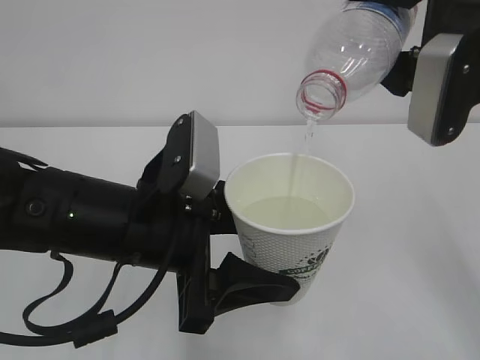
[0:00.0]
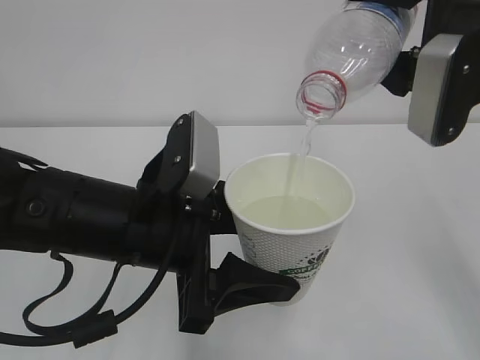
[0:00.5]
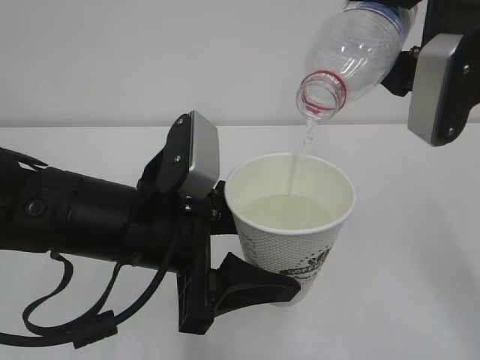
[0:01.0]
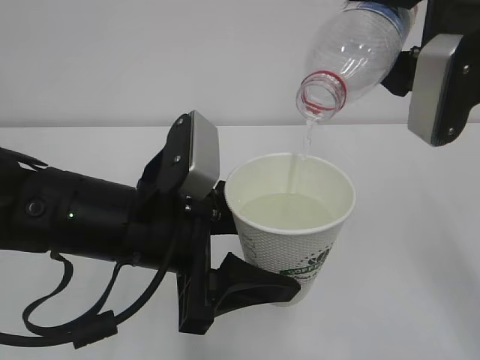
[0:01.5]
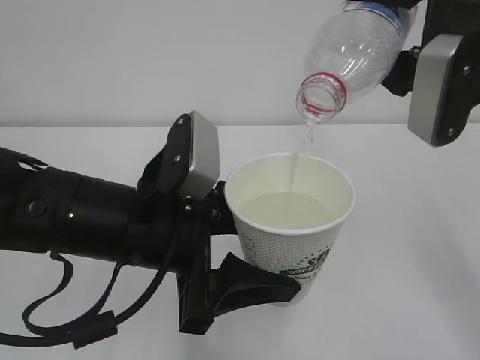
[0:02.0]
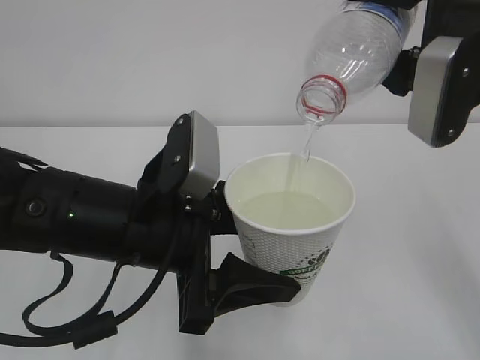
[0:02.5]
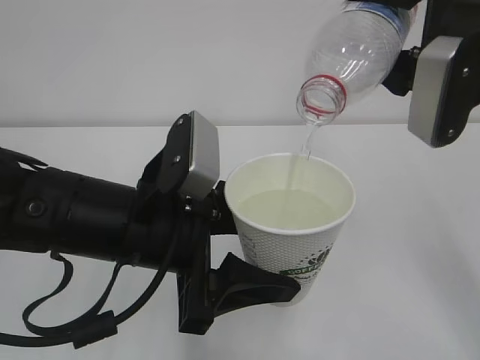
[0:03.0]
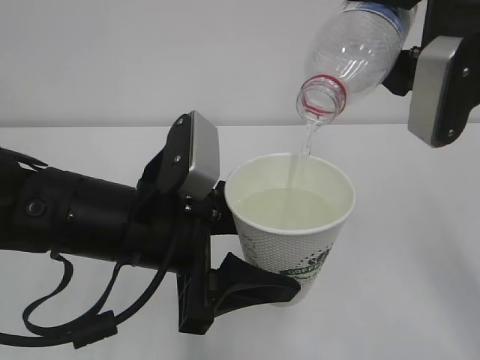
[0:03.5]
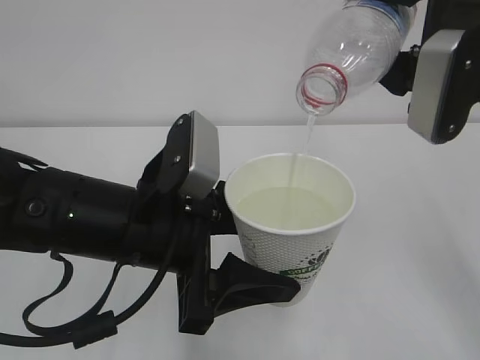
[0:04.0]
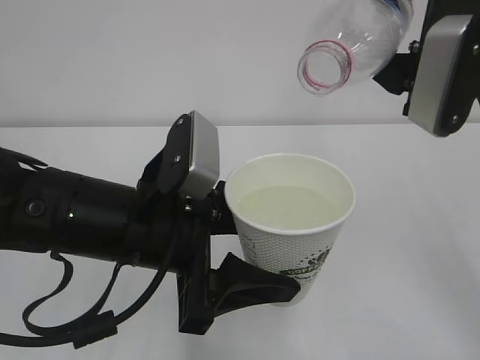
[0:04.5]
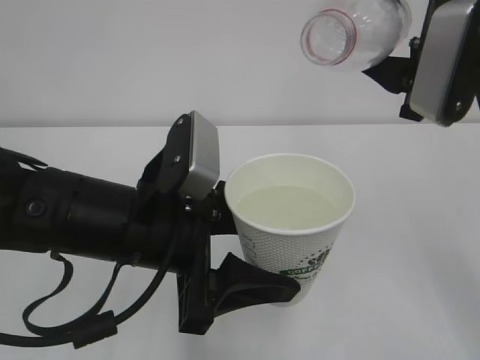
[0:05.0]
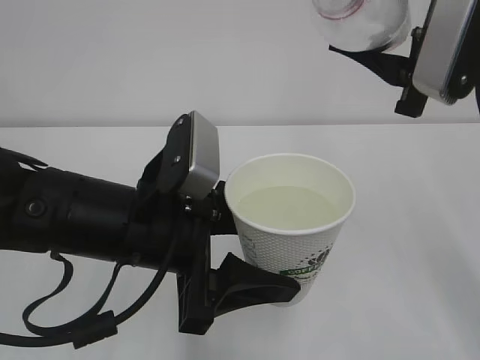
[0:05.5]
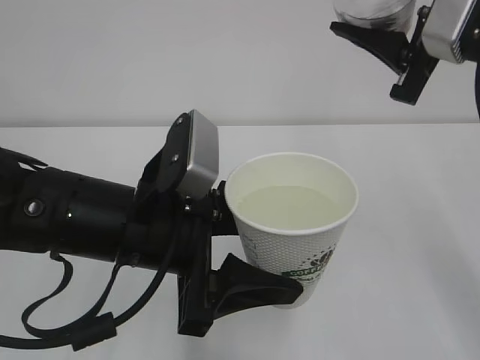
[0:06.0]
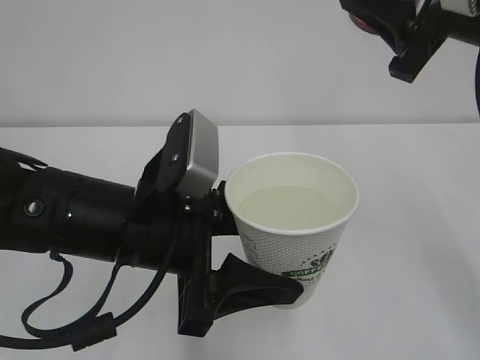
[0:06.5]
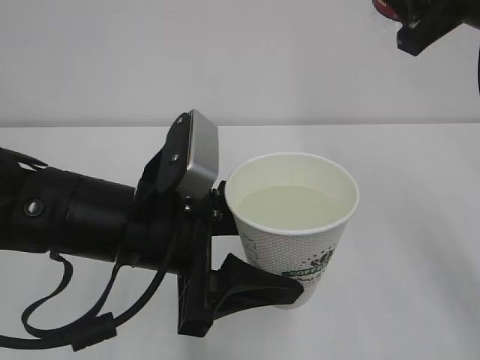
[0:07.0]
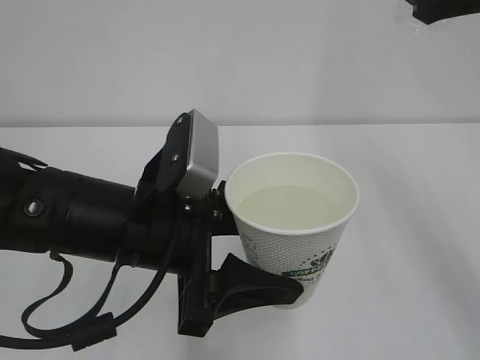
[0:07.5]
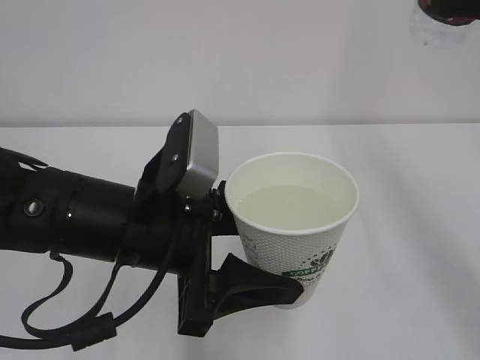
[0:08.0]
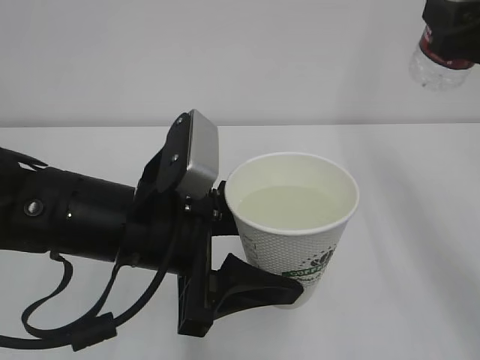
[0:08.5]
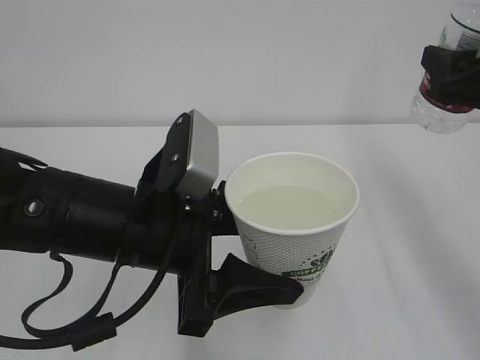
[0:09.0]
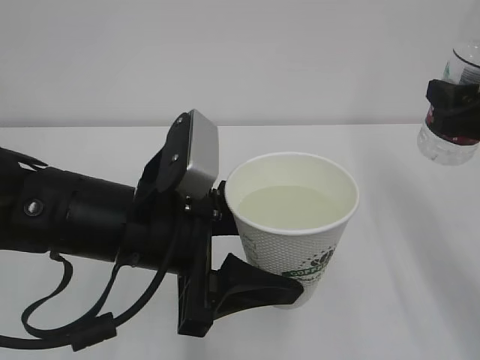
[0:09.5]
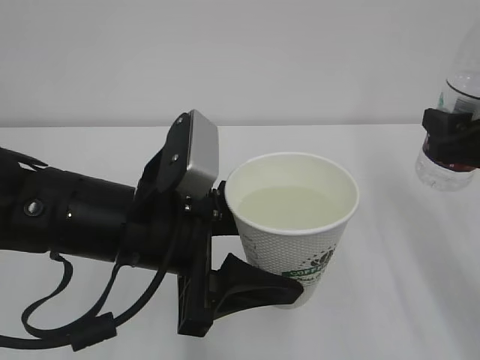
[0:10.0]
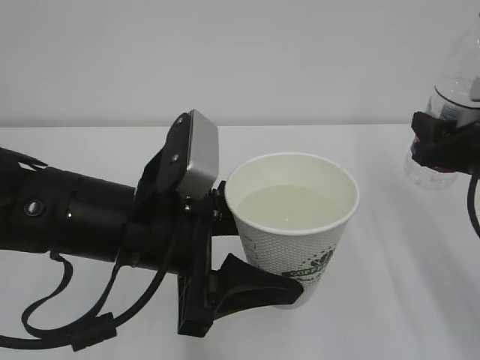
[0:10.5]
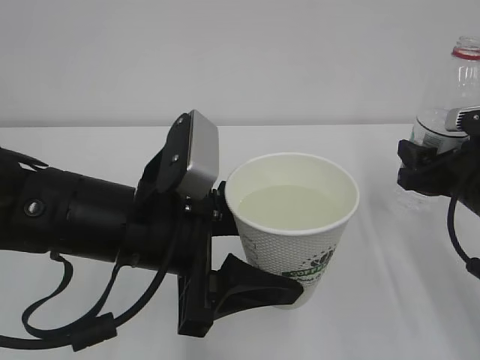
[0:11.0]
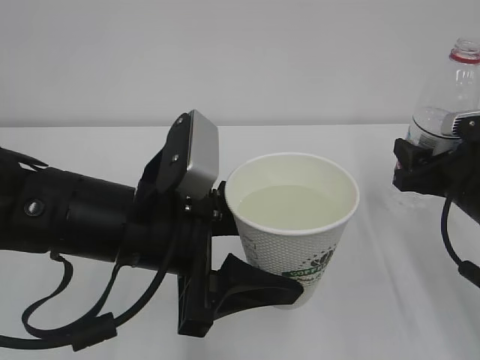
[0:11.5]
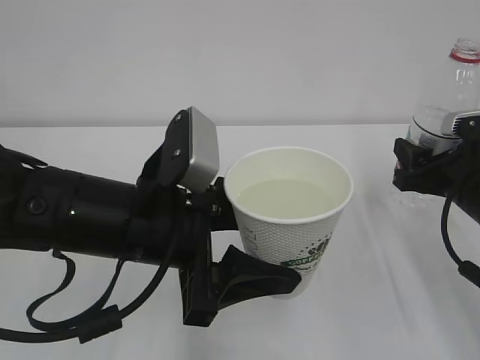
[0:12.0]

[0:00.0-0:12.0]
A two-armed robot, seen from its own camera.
0:00.0 to 0:04.0: The two grippers keep their place.
0:06.0 to 0:08.0: The right gripper shifts by about 5 cm.
0:08.0 to 0:10.0: The right gripper shifts approximately 10 cm downward.
0:10.0 to 0:12.0: The right gripper is displaced downward by approximately 5 cm.

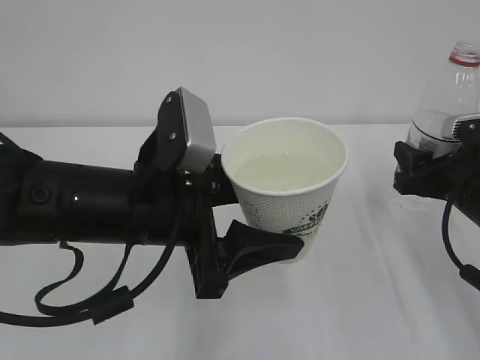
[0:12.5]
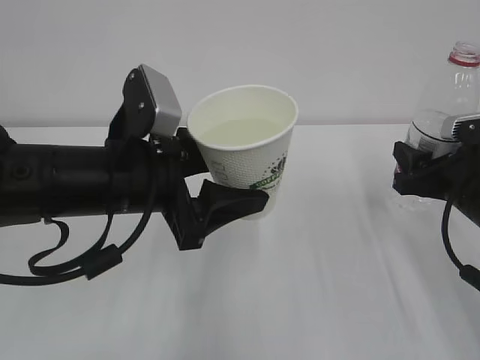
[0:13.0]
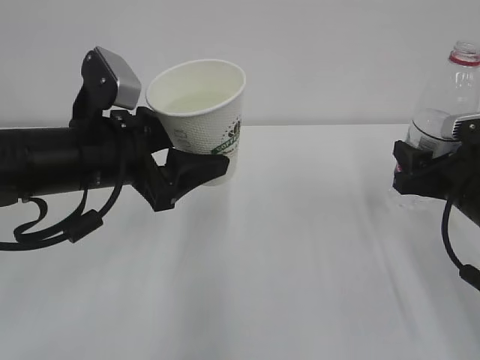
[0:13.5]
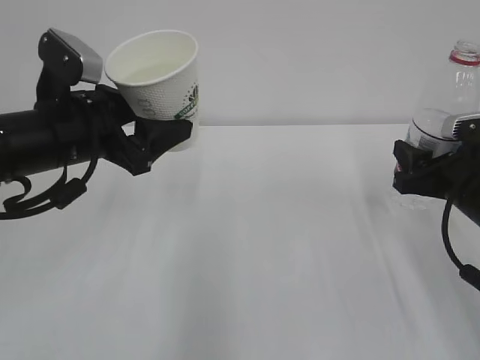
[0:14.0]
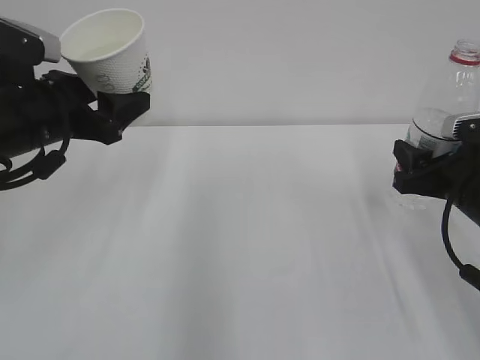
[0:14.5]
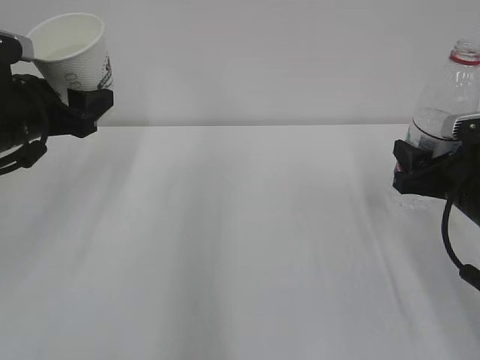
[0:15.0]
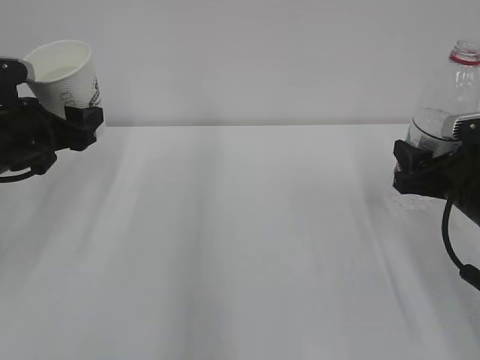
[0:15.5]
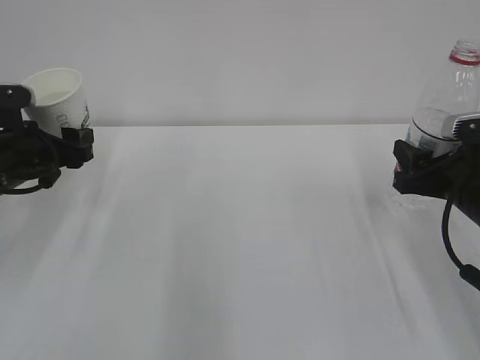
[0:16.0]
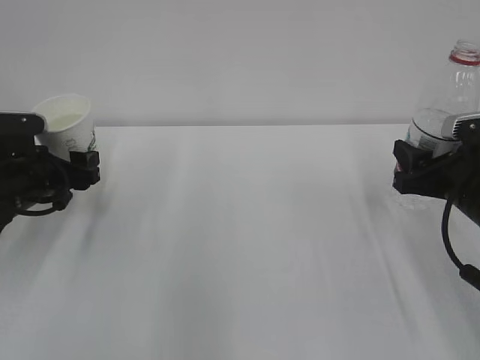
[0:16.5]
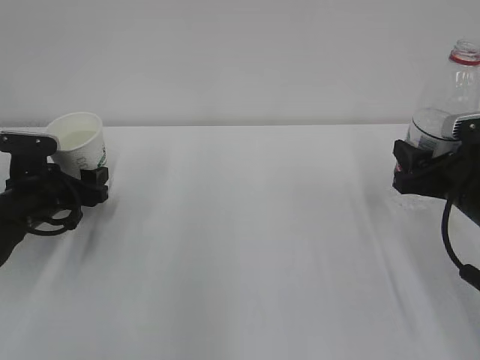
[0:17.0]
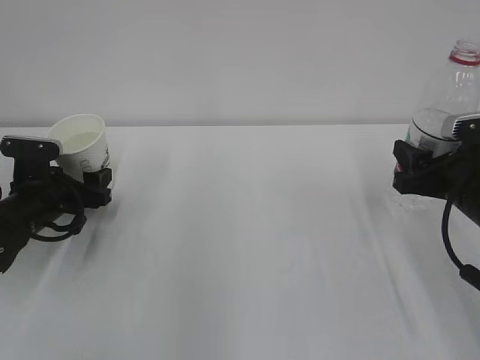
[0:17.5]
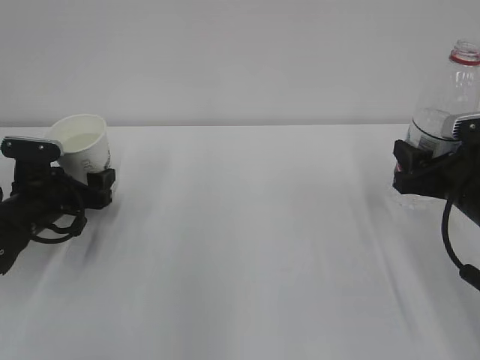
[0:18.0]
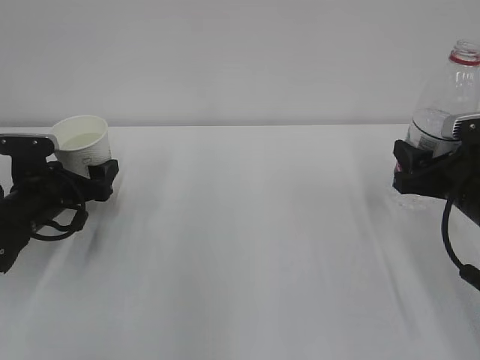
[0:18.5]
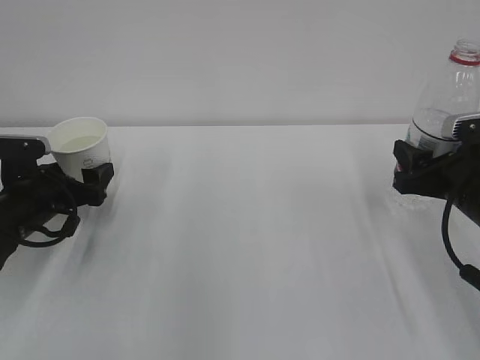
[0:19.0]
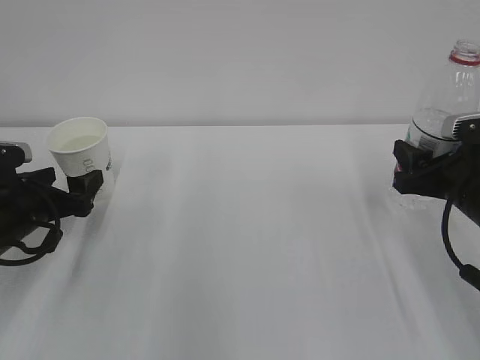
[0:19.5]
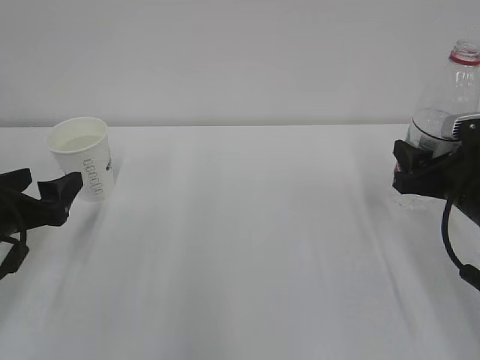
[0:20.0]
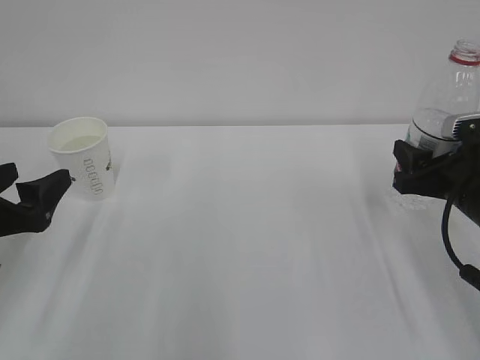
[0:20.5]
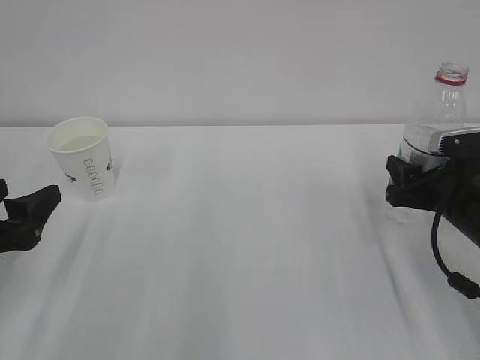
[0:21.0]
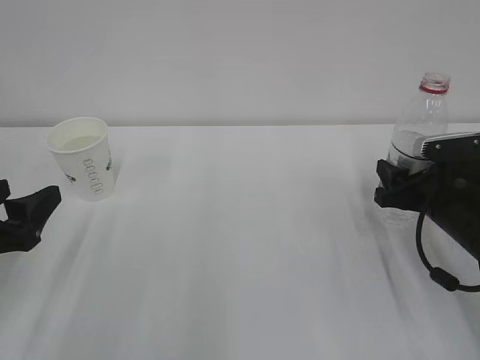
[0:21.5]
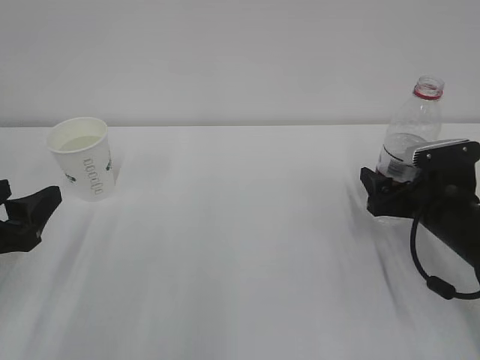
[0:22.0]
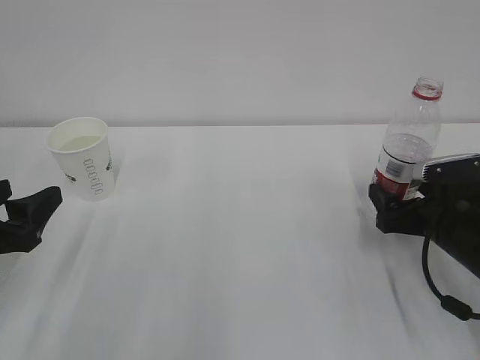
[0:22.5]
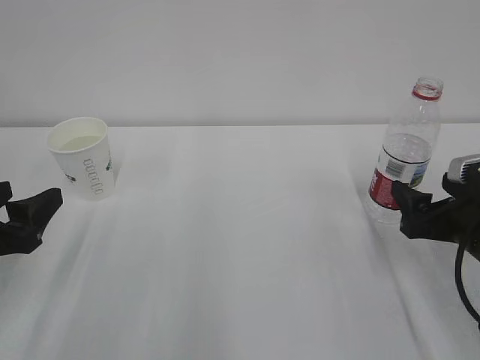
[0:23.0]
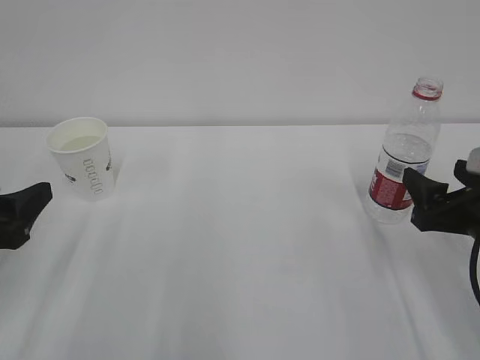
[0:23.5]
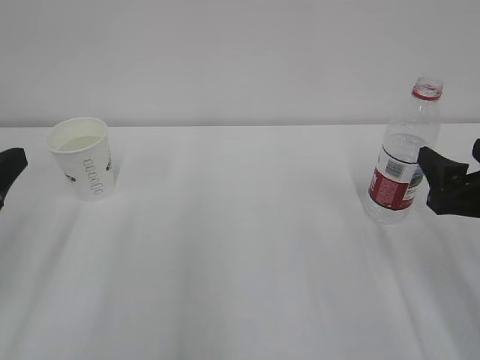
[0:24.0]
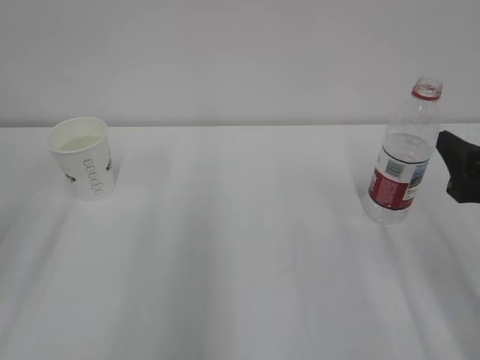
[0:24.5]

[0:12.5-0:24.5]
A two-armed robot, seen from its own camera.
0:12.5 to 0:14.5: The left gripper heads to the left and forward, covering about 15 cm.
0:14.5 to 0:16.5: The left gripper goes about 15 cm downward and to the left.
0:16.5 to 0:18.5: The left gripper opens up.
0:18.5 to 0:20.5: The left gripper heads backward and upward, covering about 15 cm.
0:20.5 to 0:22.5: The right gripper travels downward by approximately 5 cm, and opens.
0:22.5 to 0:24.5: The right gripper goes some 15 cm upward and backward, while the left gripper is displaced upward by approximately 10 cm.

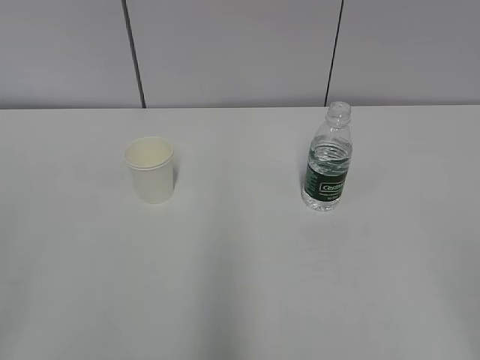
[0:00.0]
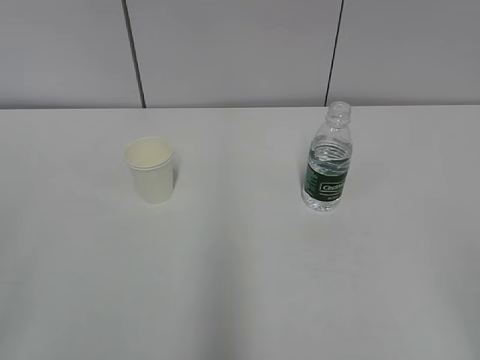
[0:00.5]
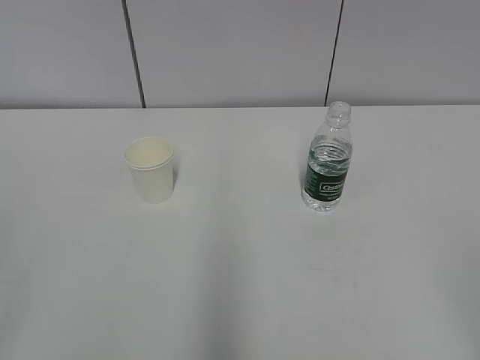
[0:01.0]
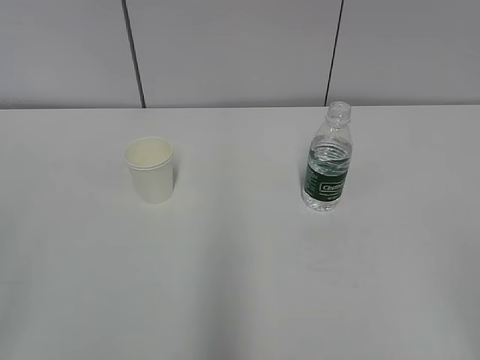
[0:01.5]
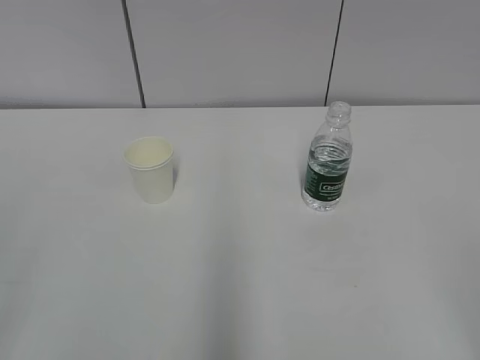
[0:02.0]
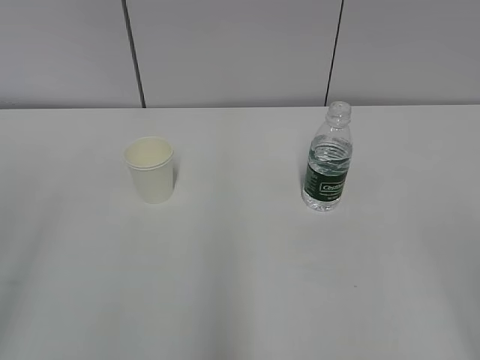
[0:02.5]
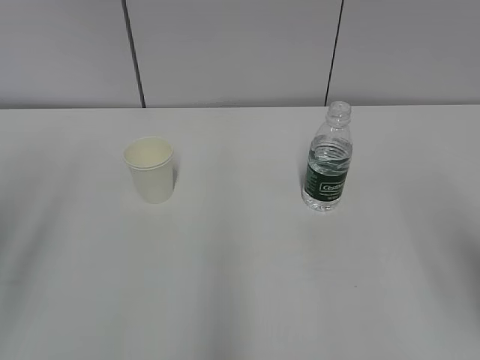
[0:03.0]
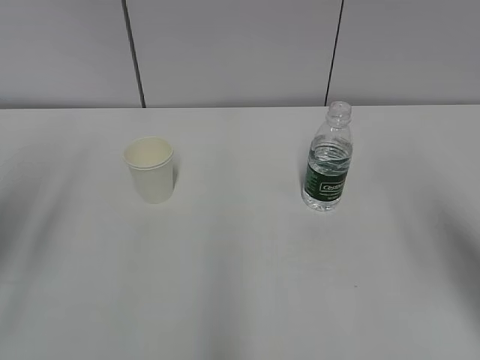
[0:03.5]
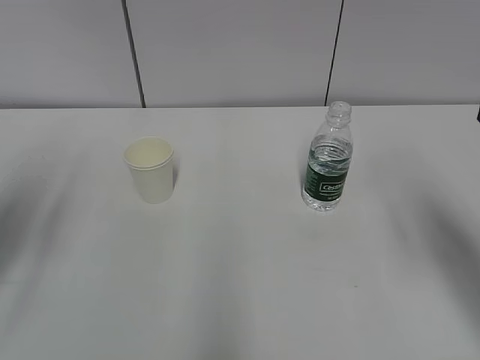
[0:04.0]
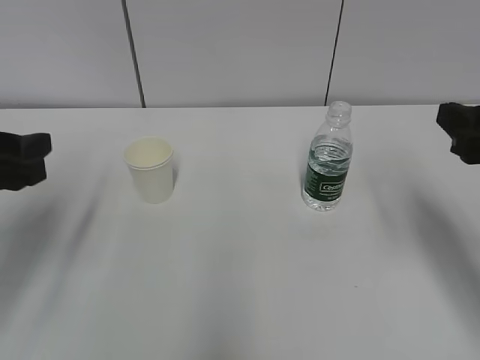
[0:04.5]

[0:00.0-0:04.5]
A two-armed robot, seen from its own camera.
0:02.0 to 0:04.5: Both grippers move forward, approximately 25 cm.
